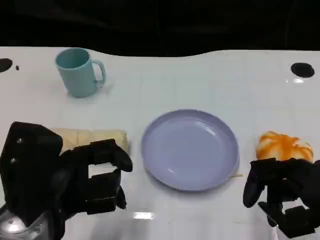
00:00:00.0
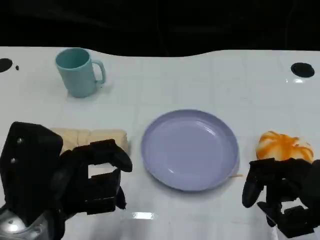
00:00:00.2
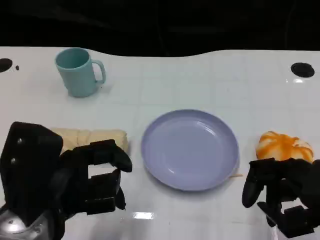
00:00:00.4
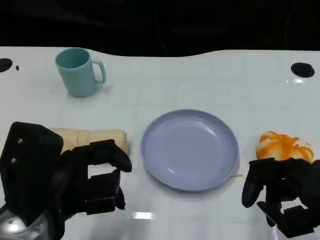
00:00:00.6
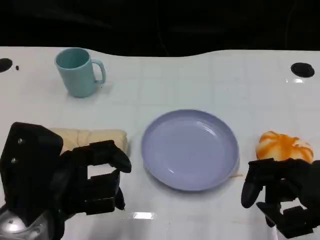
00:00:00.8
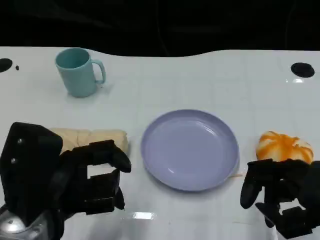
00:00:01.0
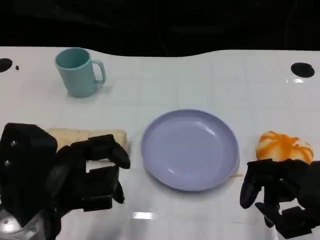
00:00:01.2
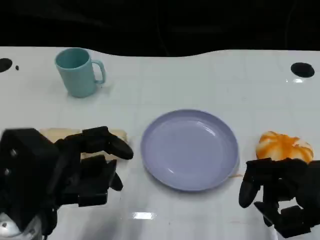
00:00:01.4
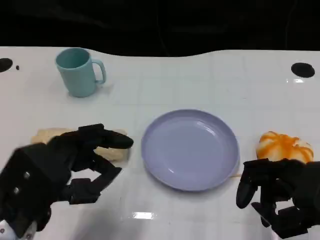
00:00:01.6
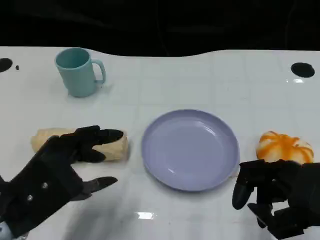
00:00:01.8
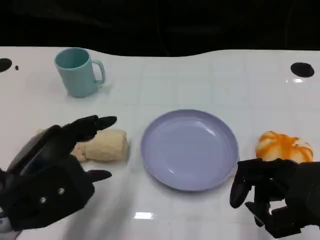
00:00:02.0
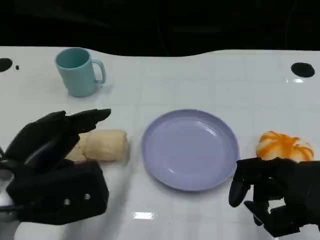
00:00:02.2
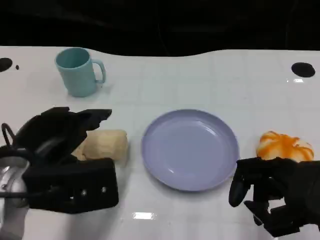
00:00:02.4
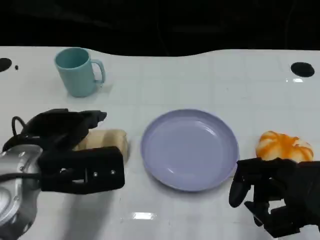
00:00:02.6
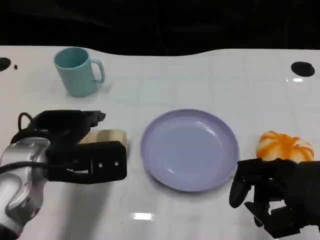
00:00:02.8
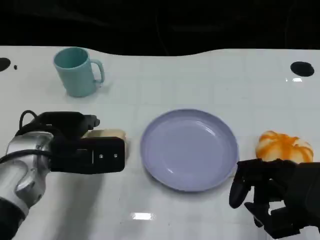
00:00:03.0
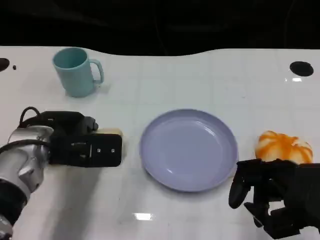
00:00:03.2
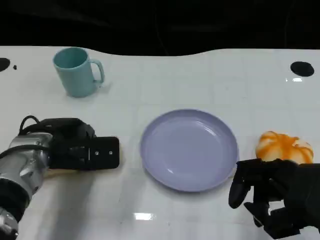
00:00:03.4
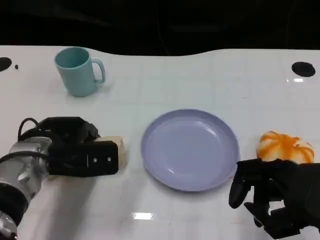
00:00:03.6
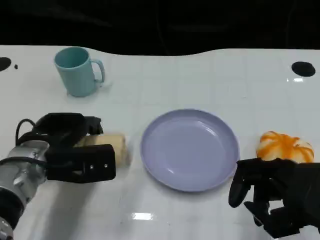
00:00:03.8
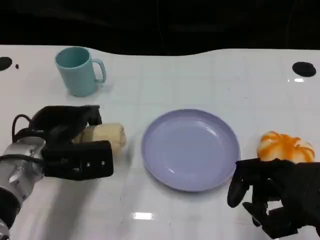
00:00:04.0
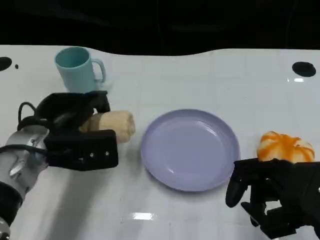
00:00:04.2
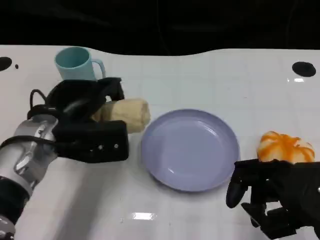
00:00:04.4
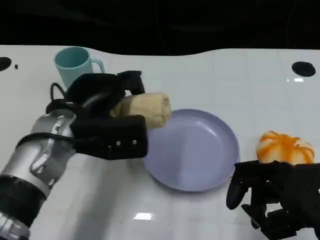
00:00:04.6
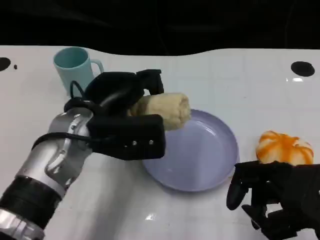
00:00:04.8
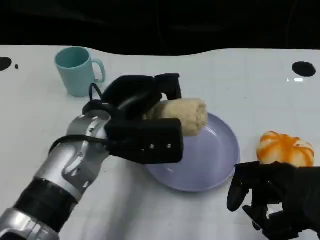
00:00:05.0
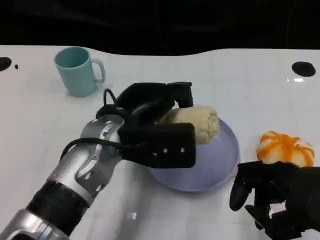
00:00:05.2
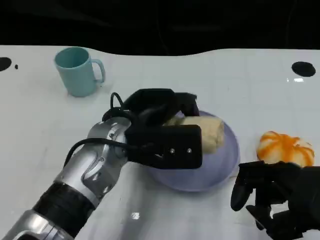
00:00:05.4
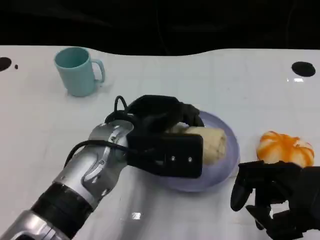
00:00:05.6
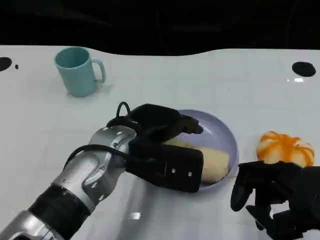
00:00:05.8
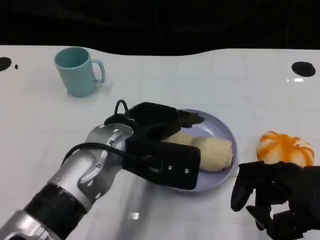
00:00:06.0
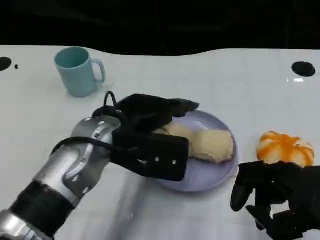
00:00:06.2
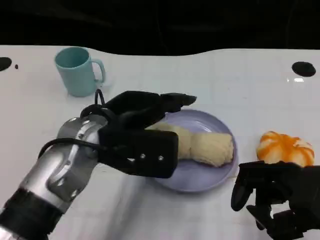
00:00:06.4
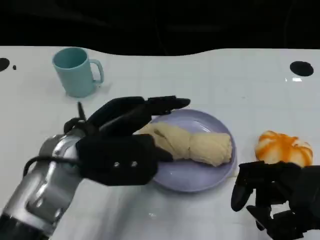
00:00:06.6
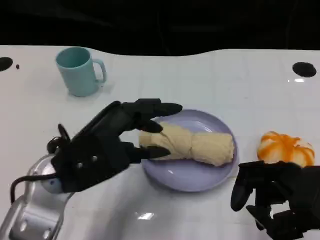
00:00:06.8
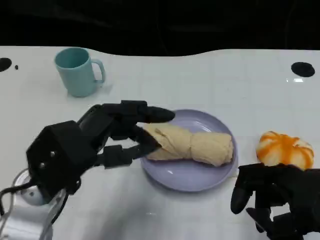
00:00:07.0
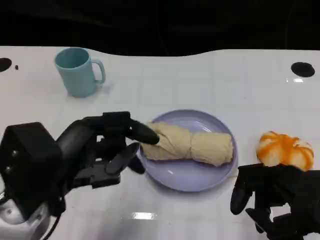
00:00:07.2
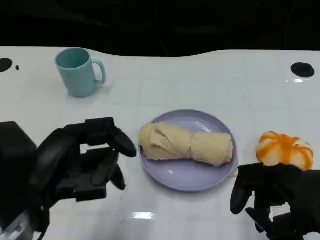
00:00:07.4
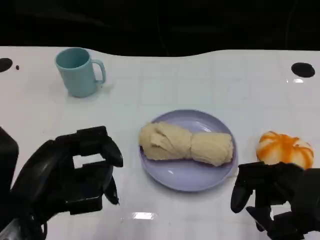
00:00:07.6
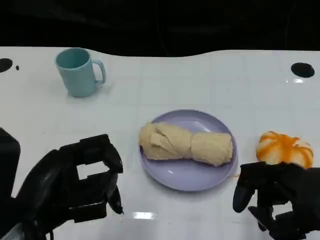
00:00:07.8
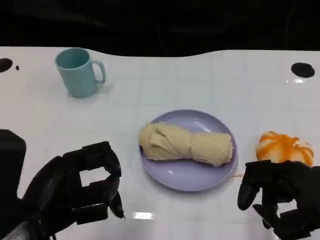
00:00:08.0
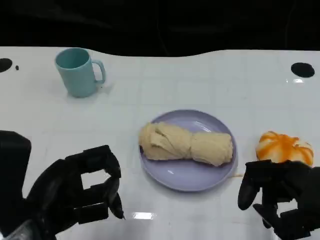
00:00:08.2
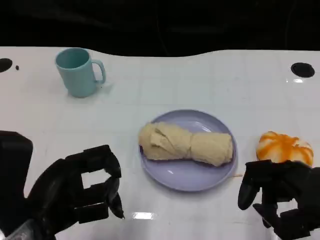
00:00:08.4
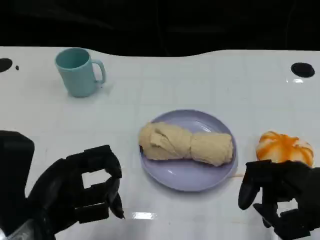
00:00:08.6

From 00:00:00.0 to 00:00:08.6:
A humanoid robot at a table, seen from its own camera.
Task of the whole recording: Grasp the towel on the left side of the plate with the left hand and place it into the plate.
From 00:00:00.0 to 00:00:01.4: The hands stay close to where they were, moving slightly.
From 00:00:01.4 to 00:00:02.8: The left hand moves forward, roughly 10 cm.
From 00:00:04.4 to 00:00:05.8: The left hand heads to the right, covering roughly 10 cm.
From 00:00:05.8 to 00:00:07.2: The left hand shifts some 15 cm to the left and backward.

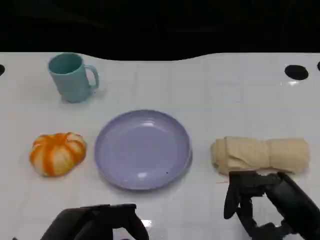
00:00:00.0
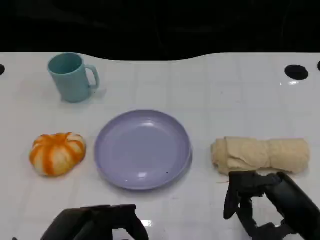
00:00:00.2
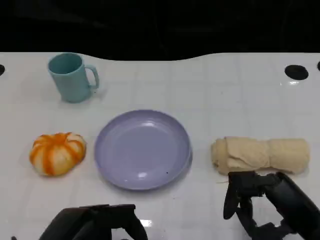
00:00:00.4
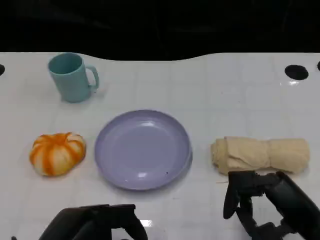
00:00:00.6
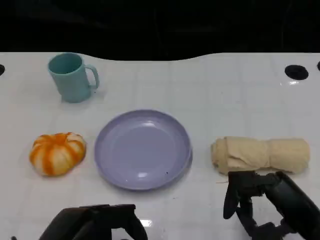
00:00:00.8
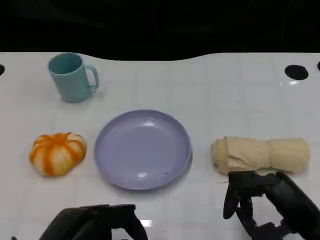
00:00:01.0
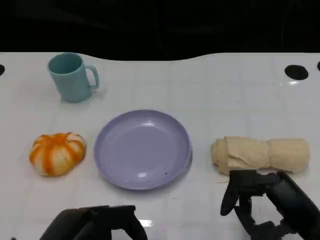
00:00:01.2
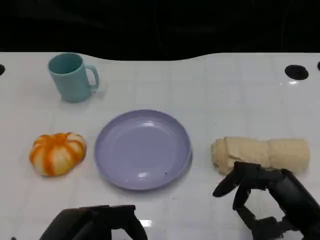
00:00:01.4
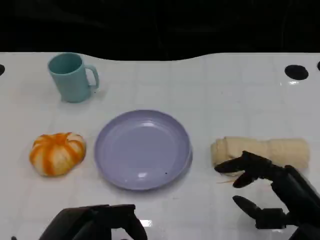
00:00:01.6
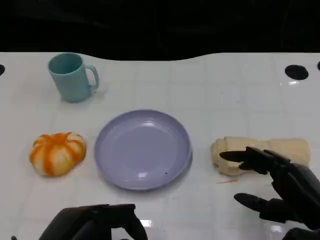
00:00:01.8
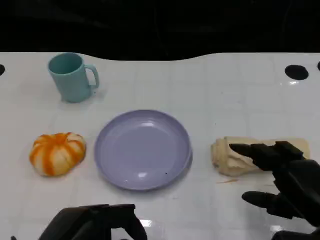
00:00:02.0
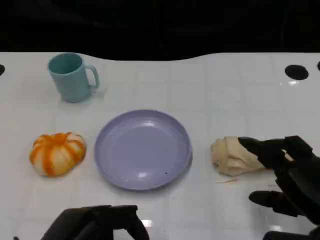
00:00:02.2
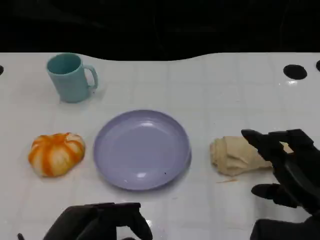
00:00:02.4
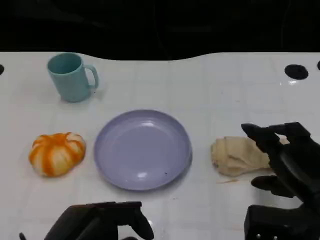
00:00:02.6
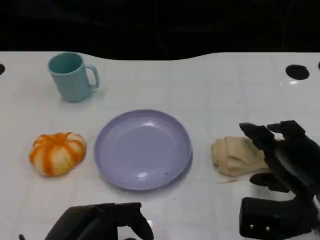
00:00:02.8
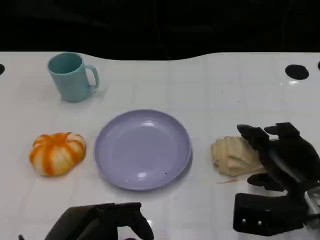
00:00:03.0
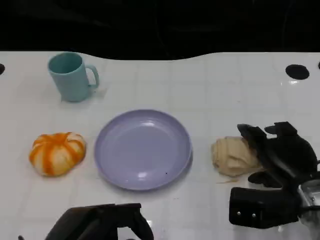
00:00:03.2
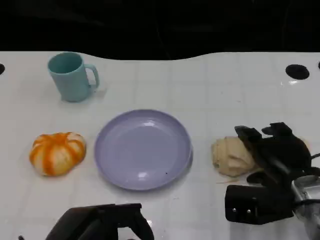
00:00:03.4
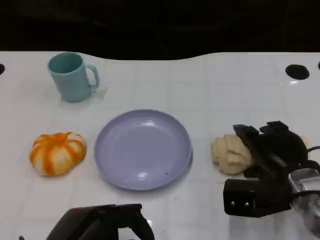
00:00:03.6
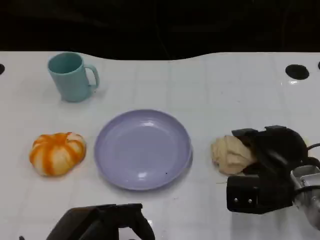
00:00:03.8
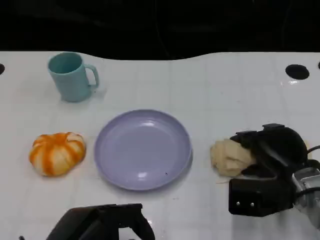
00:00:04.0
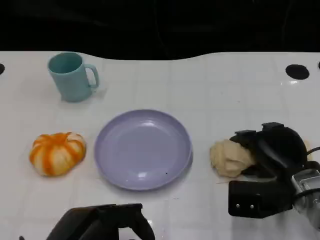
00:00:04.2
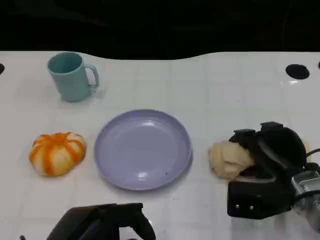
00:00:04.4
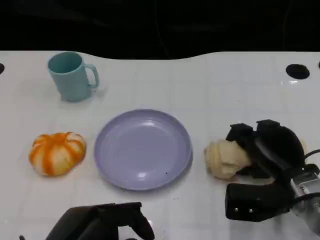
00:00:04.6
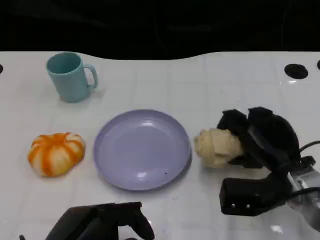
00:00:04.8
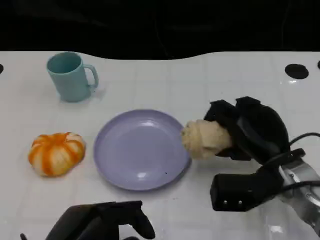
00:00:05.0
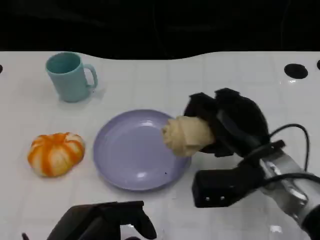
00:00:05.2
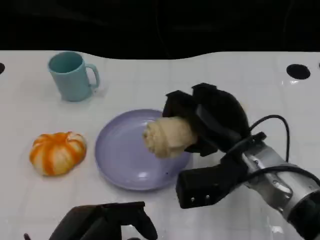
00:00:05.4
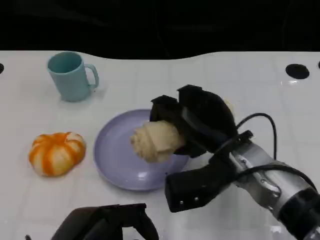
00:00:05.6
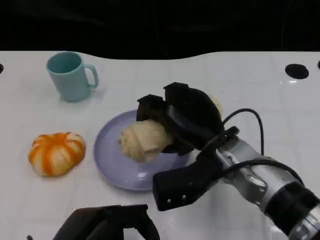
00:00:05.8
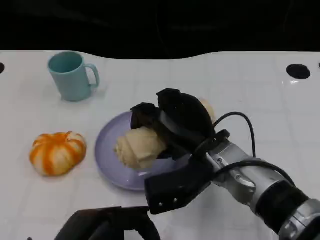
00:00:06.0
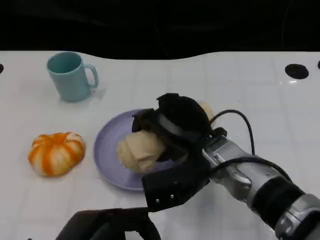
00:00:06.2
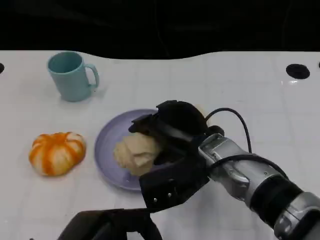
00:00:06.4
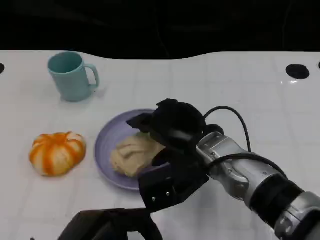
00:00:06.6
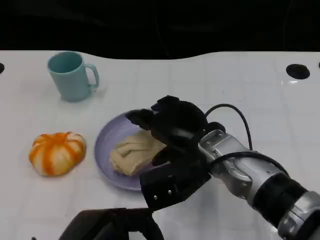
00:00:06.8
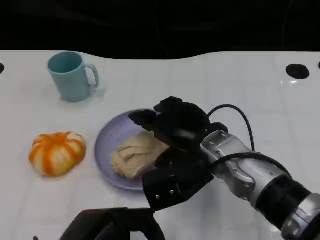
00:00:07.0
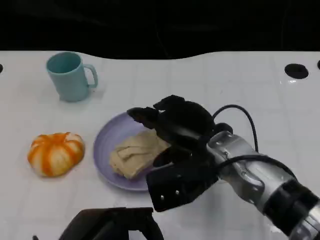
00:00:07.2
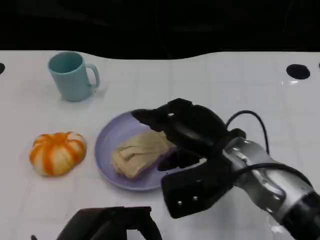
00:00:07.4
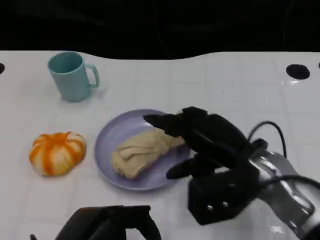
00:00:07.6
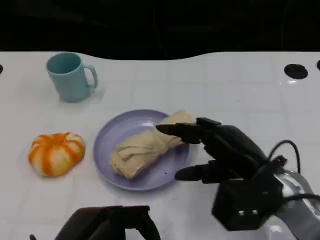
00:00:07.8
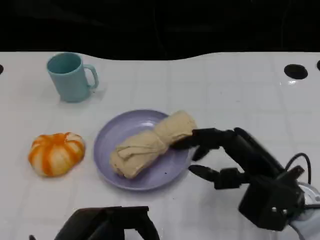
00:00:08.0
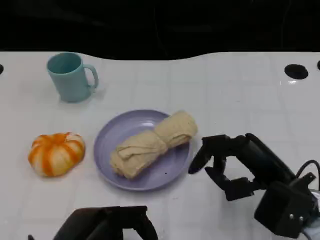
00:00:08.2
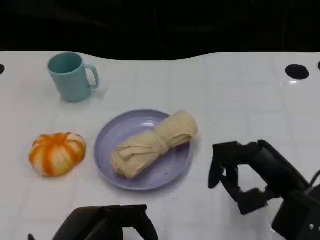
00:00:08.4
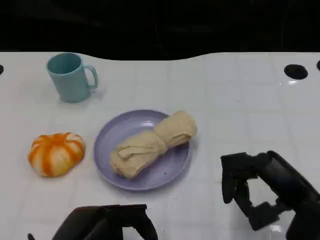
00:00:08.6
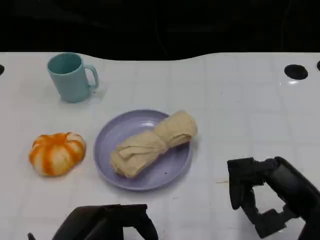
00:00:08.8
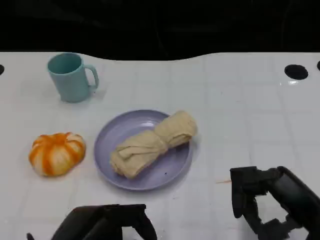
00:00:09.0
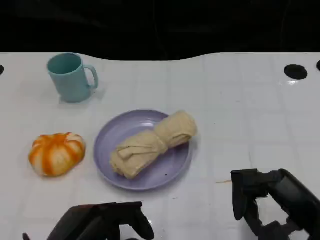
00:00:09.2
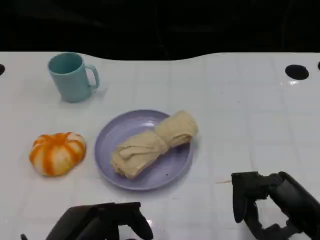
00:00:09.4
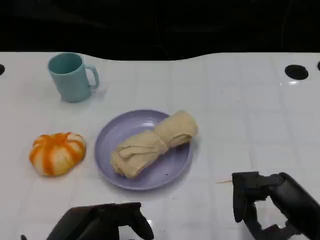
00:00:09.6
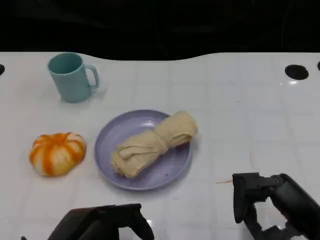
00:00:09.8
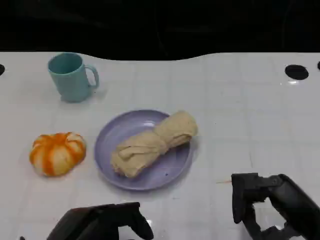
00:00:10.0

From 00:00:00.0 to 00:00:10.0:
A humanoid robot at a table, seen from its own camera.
Task of the whole recording: Grasp the towel on the left side of the plate with the left hand and place it into the plate.
From 00:00:00.0 to 00:00:01.4: The hands make only small movements.
From 00:00:01.4 to 00:00:02.8: The right hand moves forward, approximately 5 cm.
From 00:00:02.8 to 00:00:04.2: The right hand moves some 5 cm.
From 00:00:04.2 to 00:00:05.8: The right hand heads to the left and upward, covering roughly 15 cm.
From 00:00:07.2 to 00:00:08.6: The right hand shifts about 15 cm to the right and backward.
From 00:00:08.6 to 00:00:10.0: The hands make only small movements.
